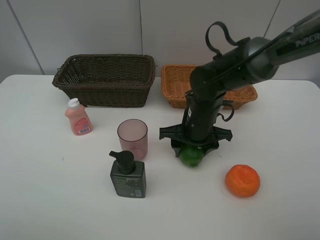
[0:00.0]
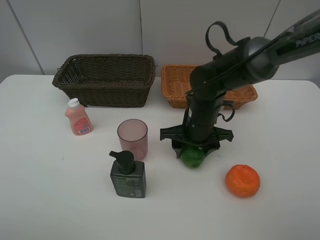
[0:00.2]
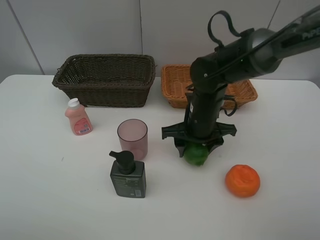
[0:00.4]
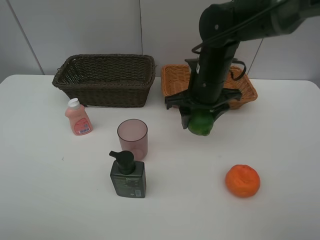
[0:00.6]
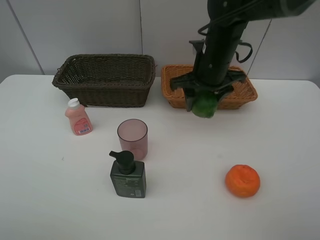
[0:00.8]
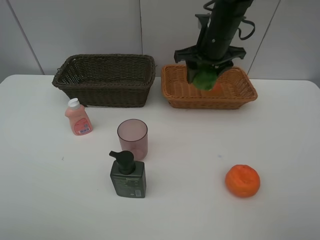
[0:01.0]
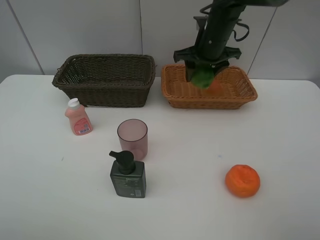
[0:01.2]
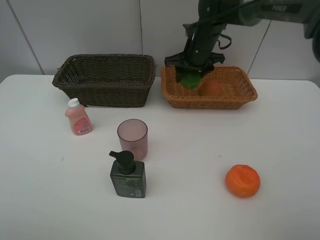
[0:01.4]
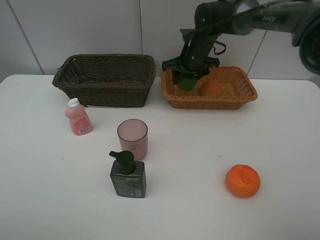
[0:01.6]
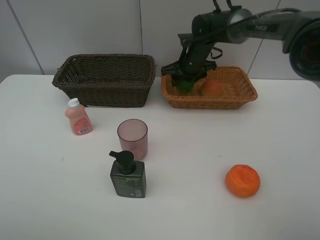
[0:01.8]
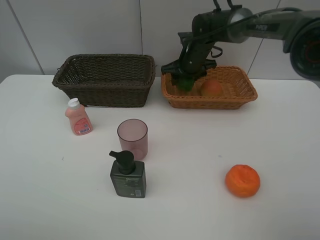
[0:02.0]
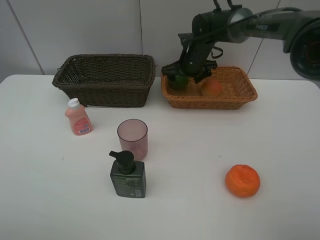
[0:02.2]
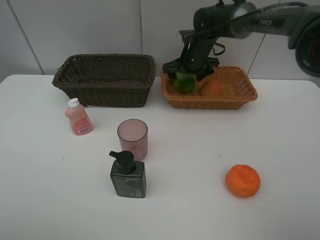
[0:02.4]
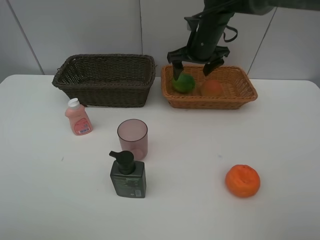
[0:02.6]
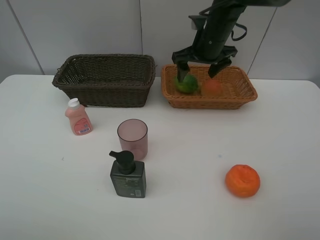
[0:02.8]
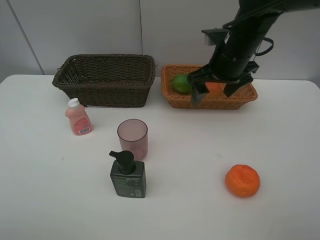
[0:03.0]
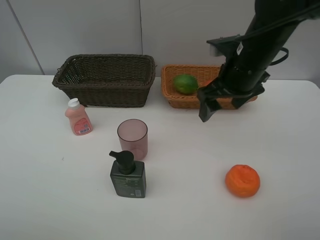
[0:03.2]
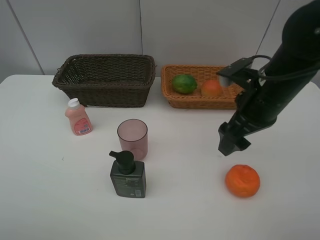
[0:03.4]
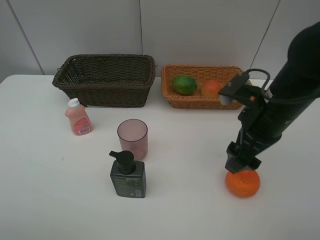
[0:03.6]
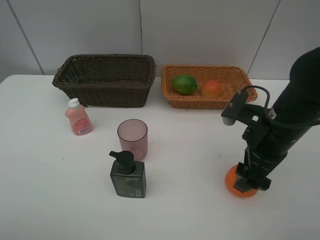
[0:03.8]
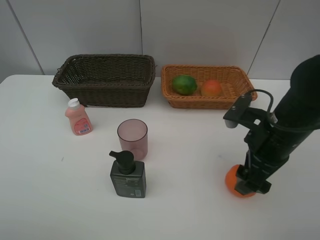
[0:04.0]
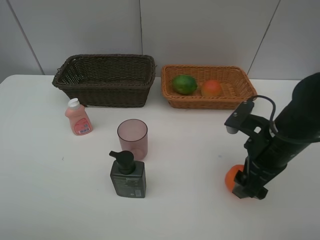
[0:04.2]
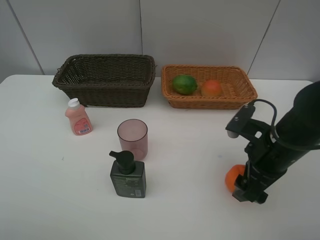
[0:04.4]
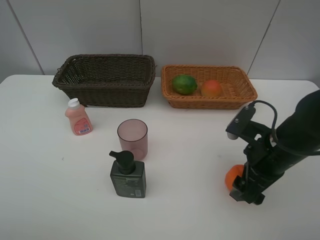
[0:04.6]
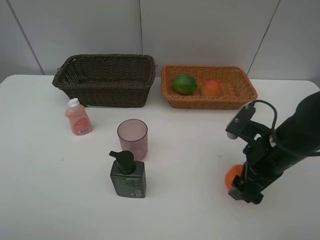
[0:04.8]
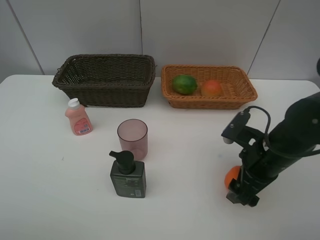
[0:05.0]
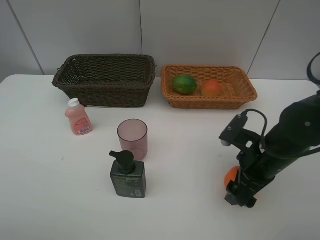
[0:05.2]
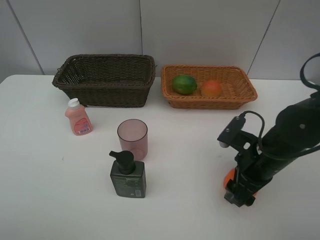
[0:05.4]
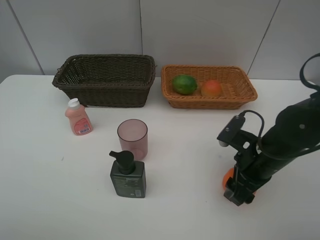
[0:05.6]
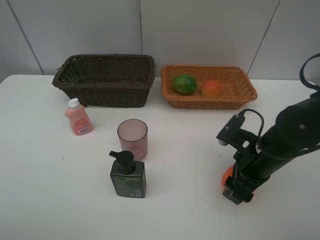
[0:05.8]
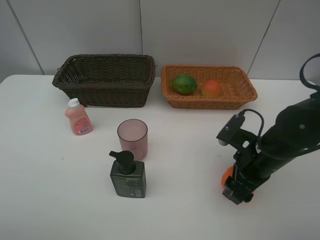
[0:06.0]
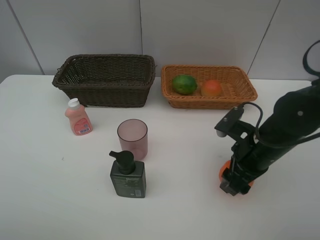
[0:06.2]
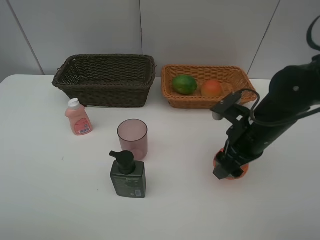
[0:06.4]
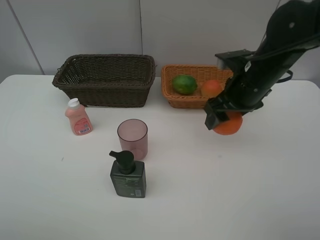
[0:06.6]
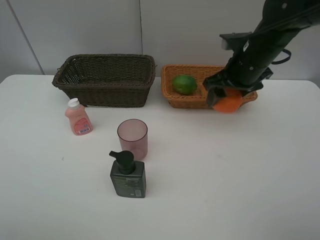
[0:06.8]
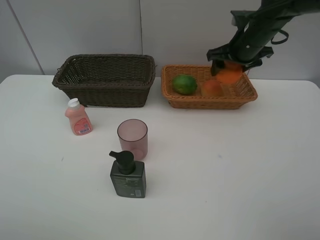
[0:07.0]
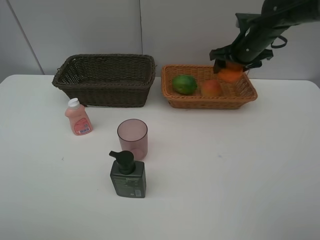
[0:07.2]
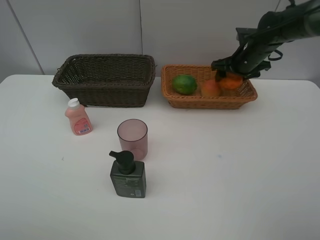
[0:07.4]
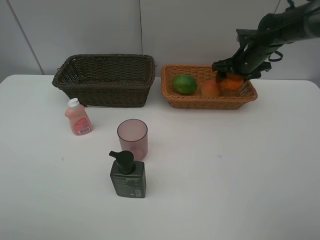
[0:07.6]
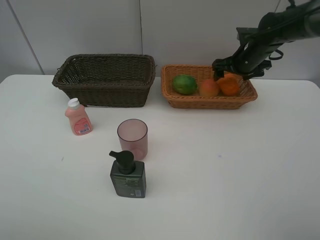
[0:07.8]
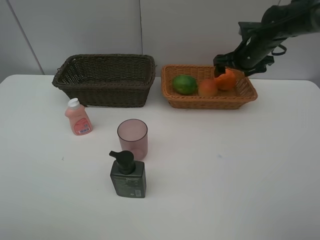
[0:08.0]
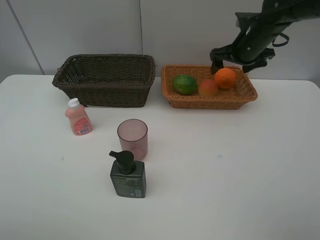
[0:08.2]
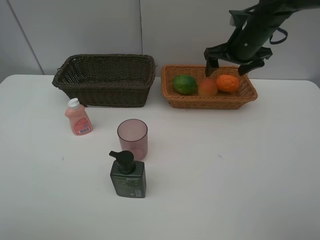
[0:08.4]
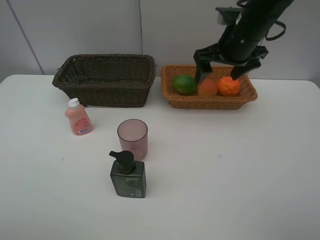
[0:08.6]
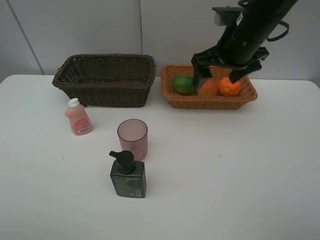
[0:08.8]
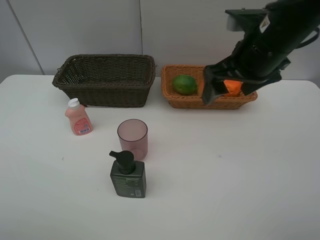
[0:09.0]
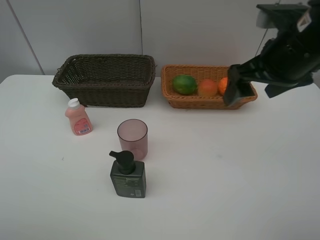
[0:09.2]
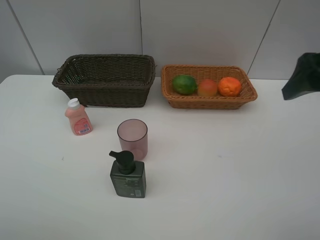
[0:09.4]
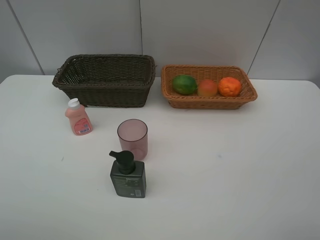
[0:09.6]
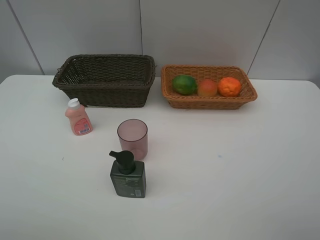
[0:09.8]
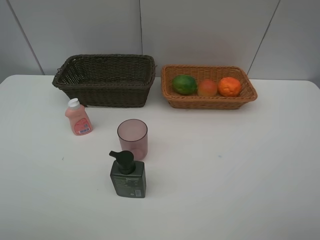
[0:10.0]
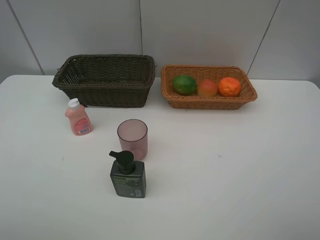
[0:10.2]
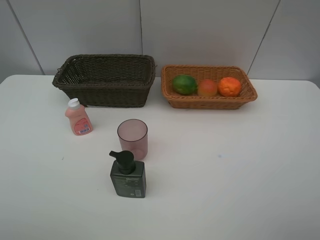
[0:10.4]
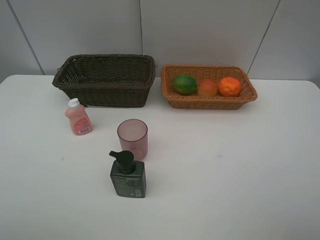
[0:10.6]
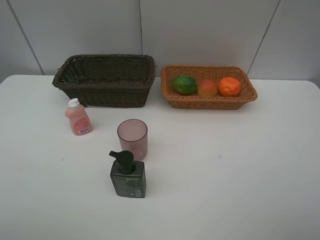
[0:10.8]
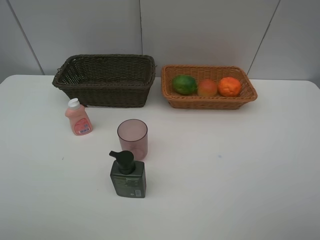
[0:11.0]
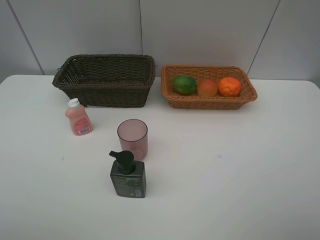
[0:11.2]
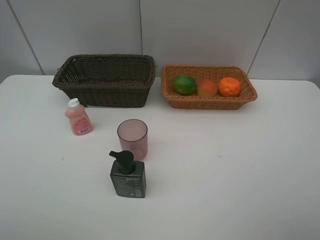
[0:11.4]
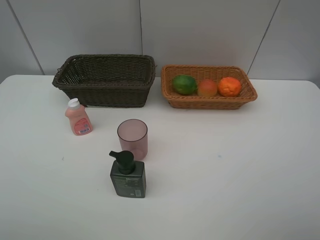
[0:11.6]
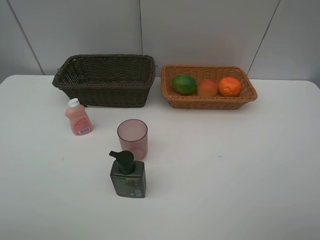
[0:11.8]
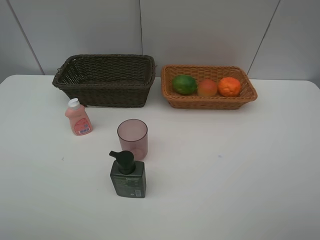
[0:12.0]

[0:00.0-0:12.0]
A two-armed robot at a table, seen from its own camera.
Task of the whole recording: place multiple objects separately in different baskets.
0:00.0 to 0:01.6: The right gripper moves forward, about 20 cm.
0:01.6 to 0:03.0: The right gripper moves backward and upward, approximately 15 cm, and opens.
0:03.0 to 0:04.4: The right gripper travels backward and downward by approximately 15 cm.
0:04.4 to 0:06.0: The right gripper closes.
0:06.0 to 0:07.6: The right gripper is displaced forward by approximately 25 cm.
0:07.6 to 0:09.0: The right gripper is displaced backward and upward by some 20 cm, and opens.
0:09.0 to 0:10.4: The right gripper moves backward and to the right, some 30 cm.

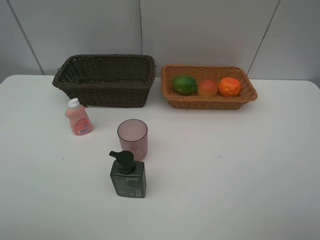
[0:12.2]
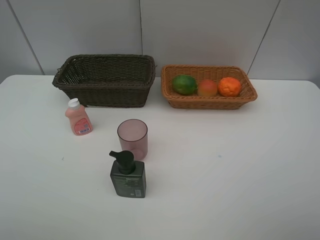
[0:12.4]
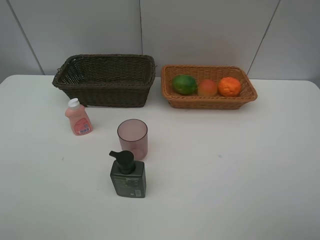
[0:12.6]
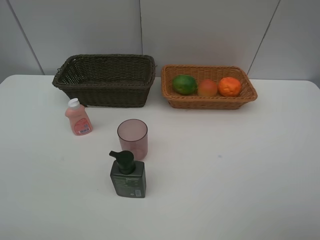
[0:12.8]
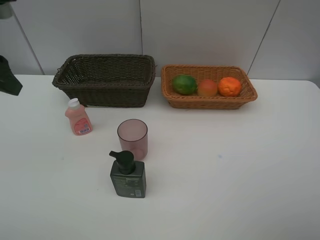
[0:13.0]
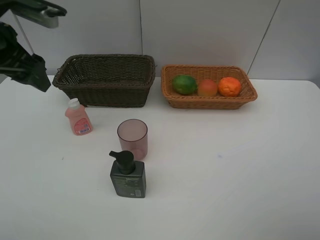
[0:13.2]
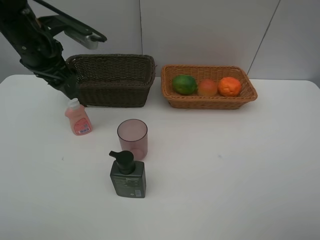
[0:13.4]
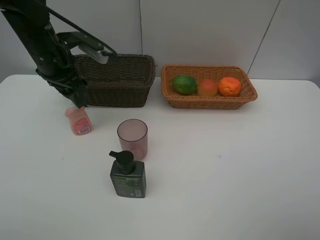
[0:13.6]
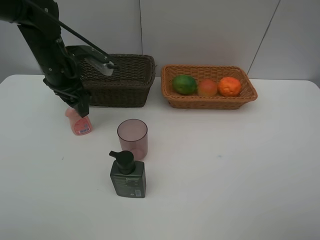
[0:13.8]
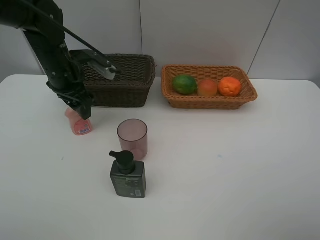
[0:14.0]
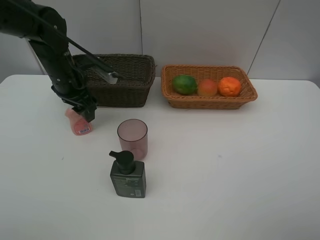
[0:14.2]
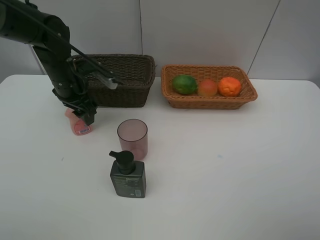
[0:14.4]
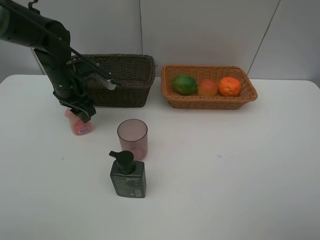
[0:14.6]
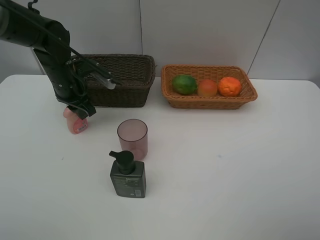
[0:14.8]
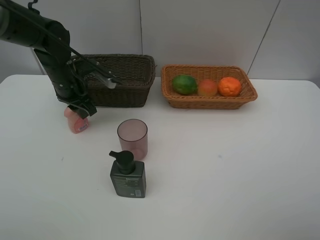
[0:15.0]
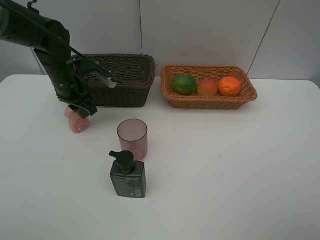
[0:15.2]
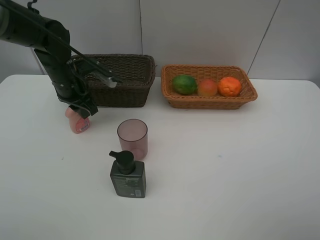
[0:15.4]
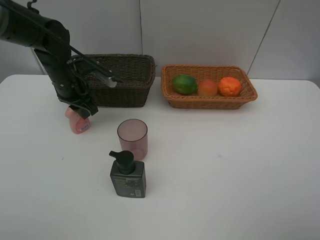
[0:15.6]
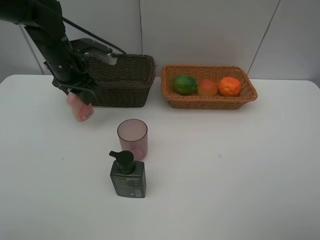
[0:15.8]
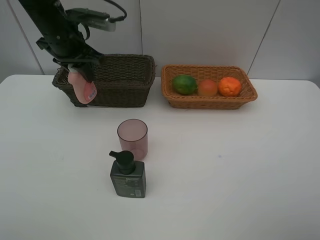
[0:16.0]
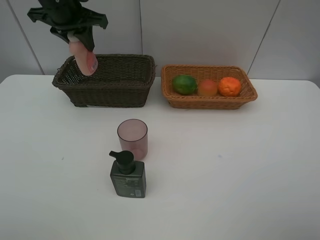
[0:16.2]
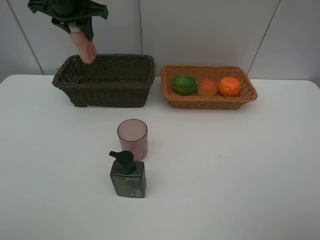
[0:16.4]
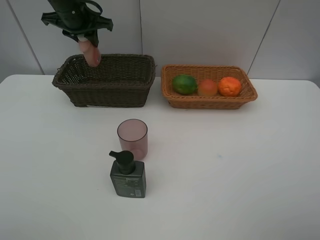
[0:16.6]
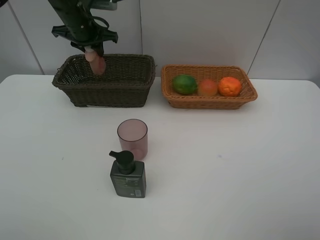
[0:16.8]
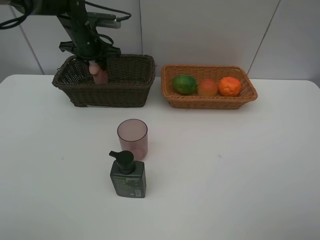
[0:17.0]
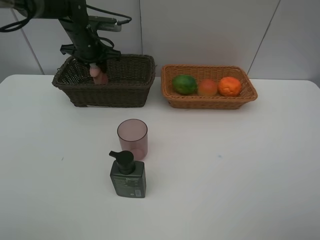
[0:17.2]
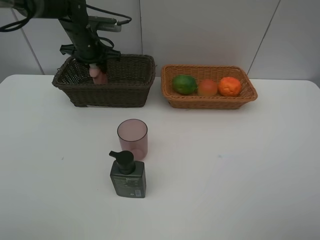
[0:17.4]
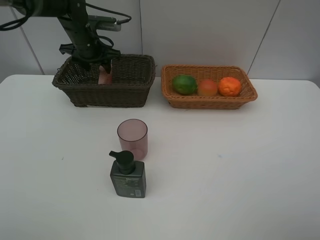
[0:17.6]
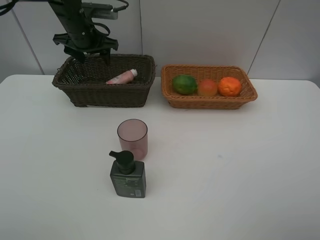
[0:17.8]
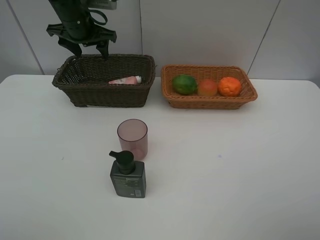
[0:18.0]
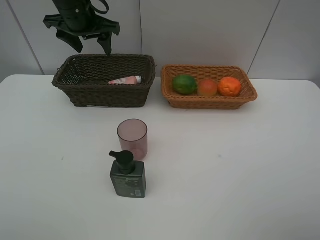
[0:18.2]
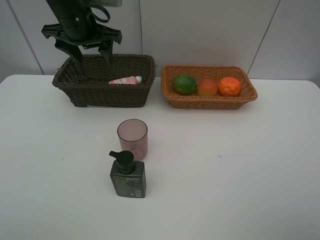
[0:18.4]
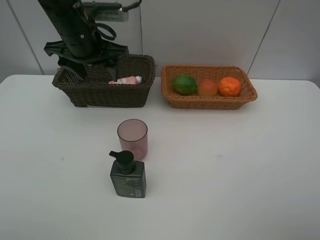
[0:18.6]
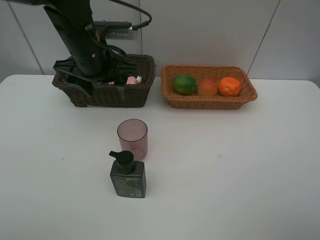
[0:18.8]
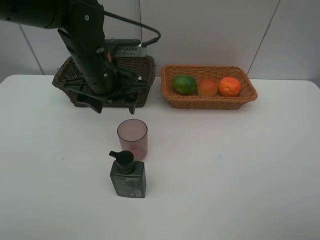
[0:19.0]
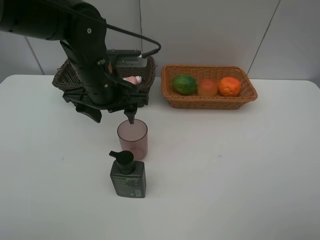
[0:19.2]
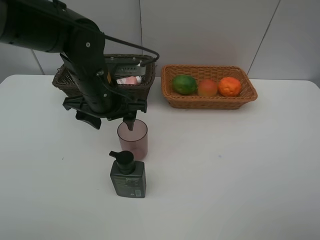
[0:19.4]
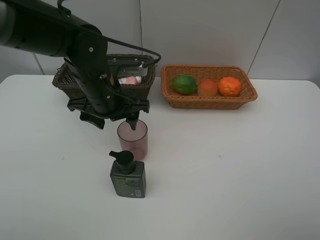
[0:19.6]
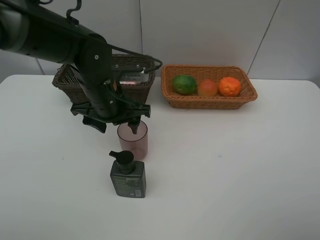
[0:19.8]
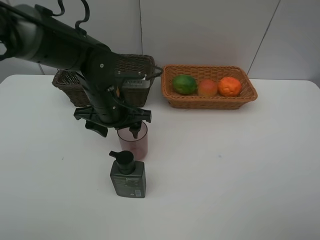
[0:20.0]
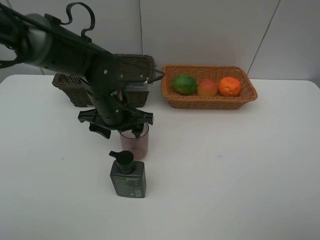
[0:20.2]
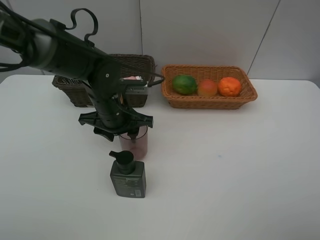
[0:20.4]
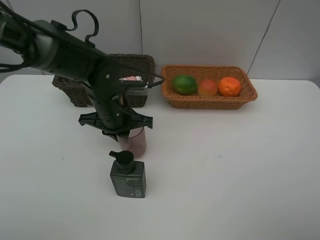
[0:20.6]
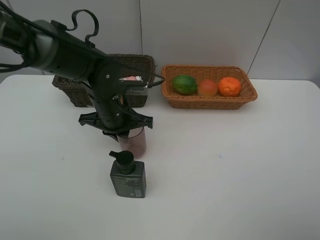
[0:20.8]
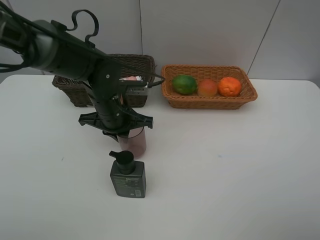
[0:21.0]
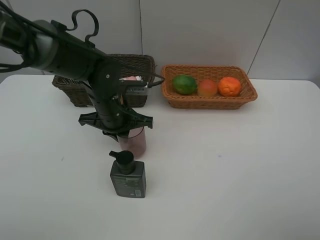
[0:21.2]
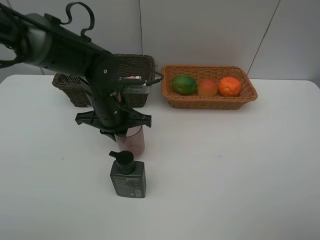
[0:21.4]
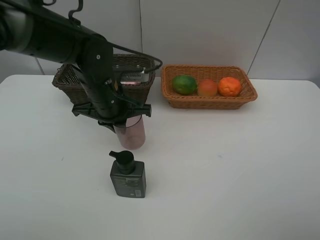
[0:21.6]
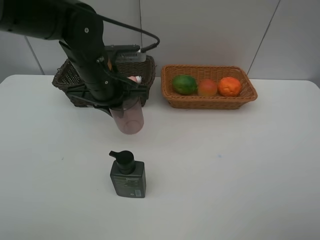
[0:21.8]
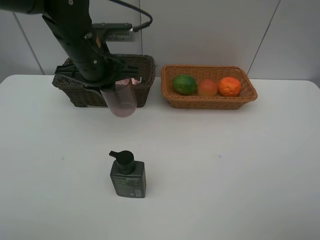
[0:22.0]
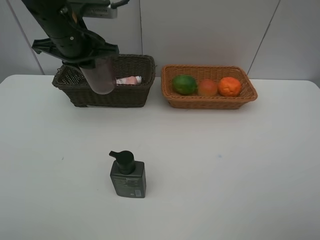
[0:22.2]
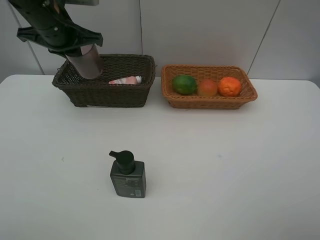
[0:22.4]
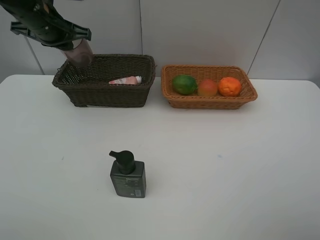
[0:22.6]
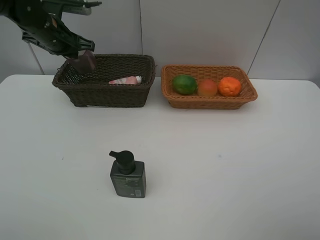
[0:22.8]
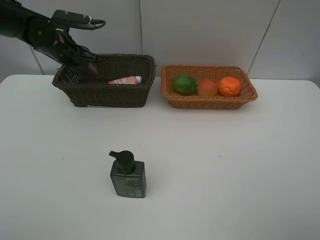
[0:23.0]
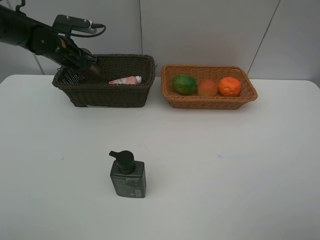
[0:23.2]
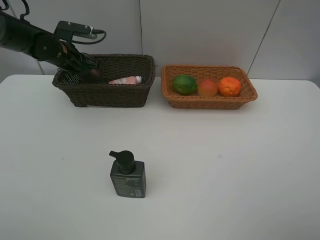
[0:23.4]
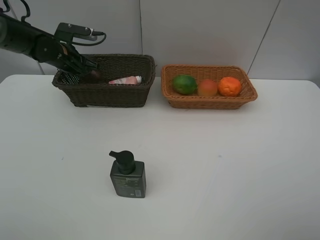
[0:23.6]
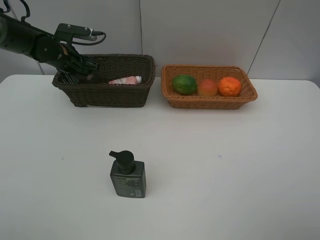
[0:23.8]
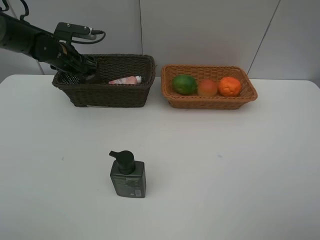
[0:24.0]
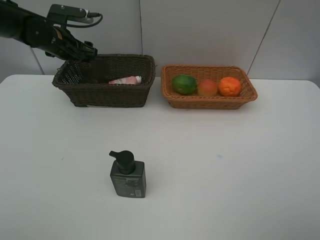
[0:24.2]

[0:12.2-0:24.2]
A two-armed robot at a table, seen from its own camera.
Task of the whole recording: place multiple objects separately in different baskets.
0:12.2 to 0:13.8: The left gripper moves forward, some 35 cm.
0:13.8 to 0:15.2: The left gripper closes.
0:15.2 to 0:16.6: The left gripper moves upward and forward, approximately 15 cm.
0:16.6 to 0:18.2: The left gripper moves approximately 10 cm downward and comes back, and opens its fingers.
0:18.2 to 0:19.8: The left gripper moves backward, downward and to the right, some 20 cm.
0:19.8 to 0:21.2: The left gripper closes its fingers.
0:21.2 to 0:22.6: The left gripper goes roughly 20 cm to the left, upward and forward.
0:22.6 to 0:24.2: The left gripper opens its fingers.
